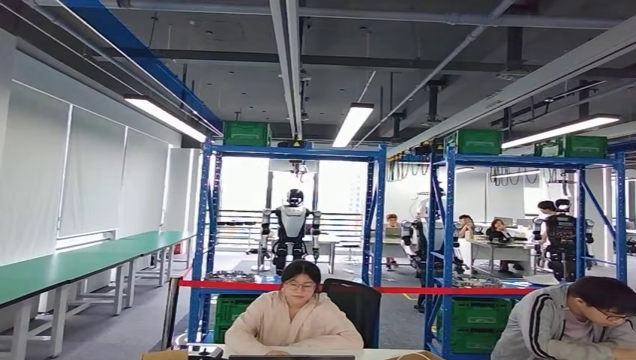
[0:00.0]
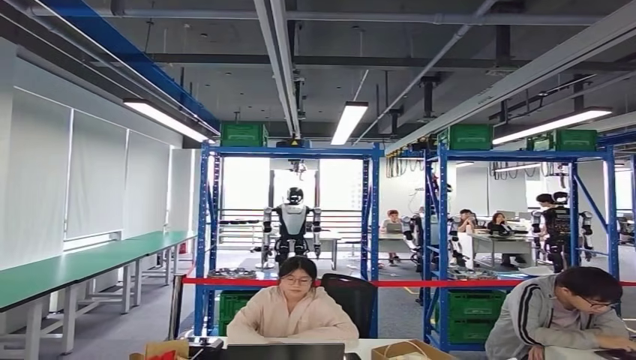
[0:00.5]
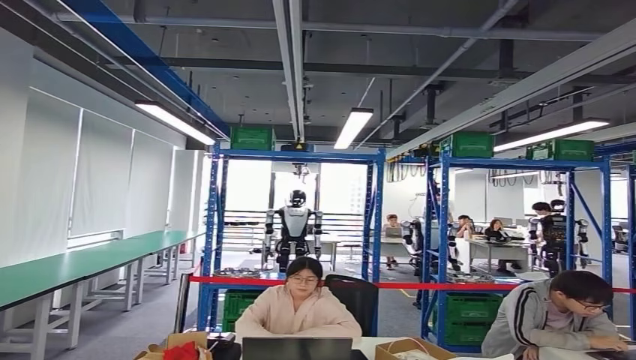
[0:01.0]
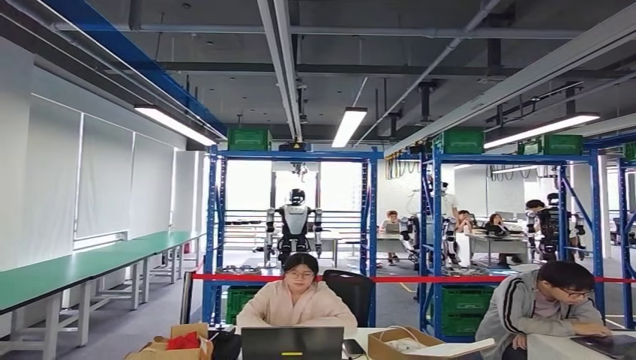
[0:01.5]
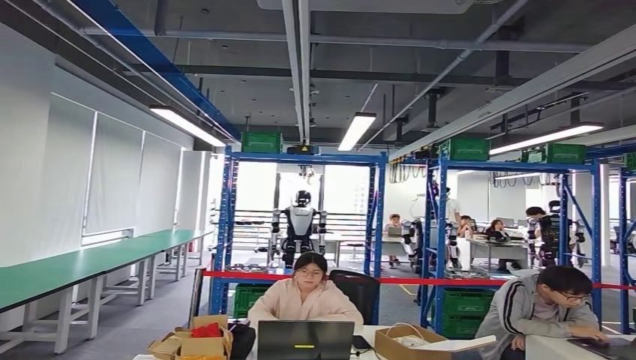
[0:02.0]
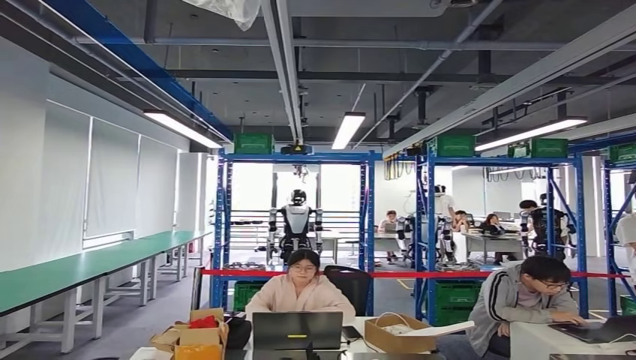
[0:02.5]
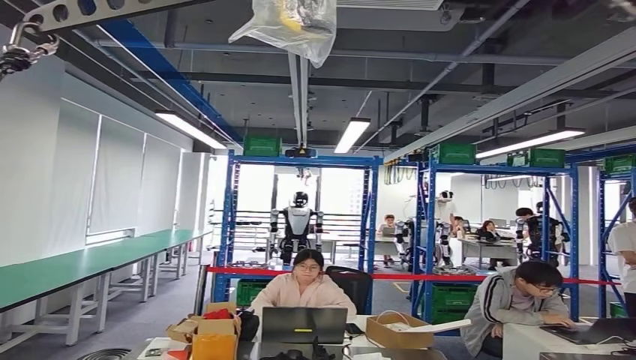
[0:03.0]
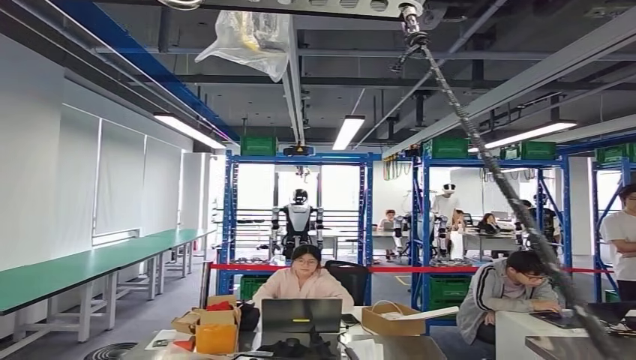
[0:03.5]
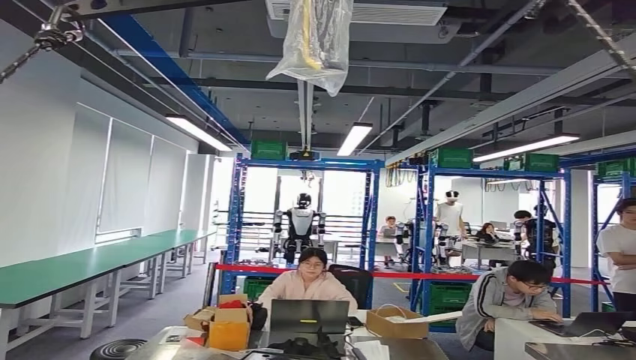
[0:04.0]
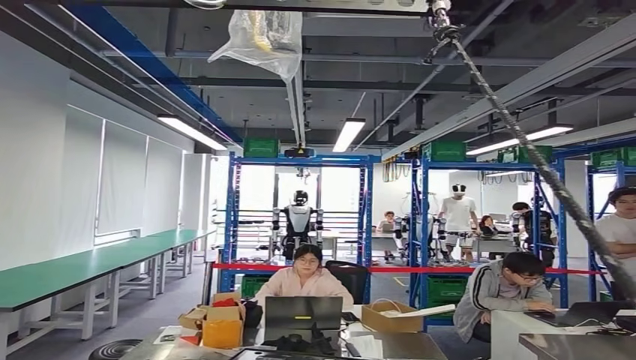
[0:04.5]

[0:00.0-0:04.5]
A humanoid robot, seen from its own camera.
Step, 0:00.0 to 0:04.5: Move to the initial position at the workbench.

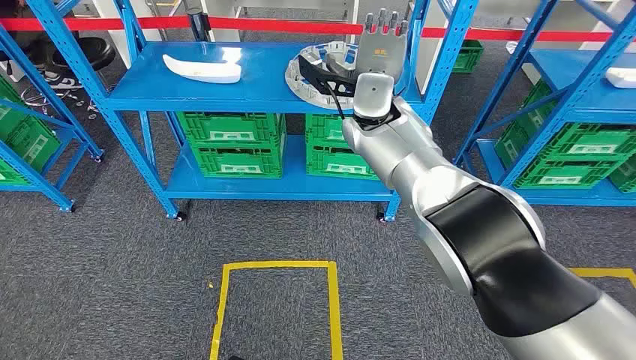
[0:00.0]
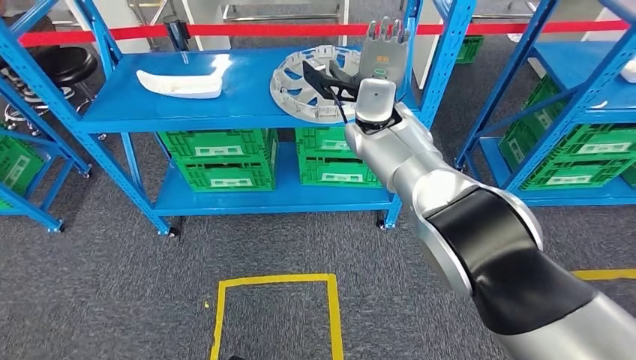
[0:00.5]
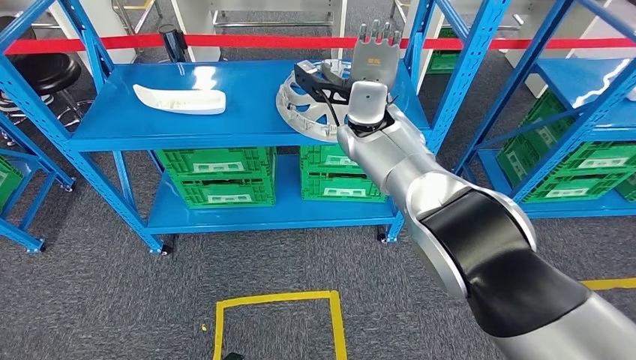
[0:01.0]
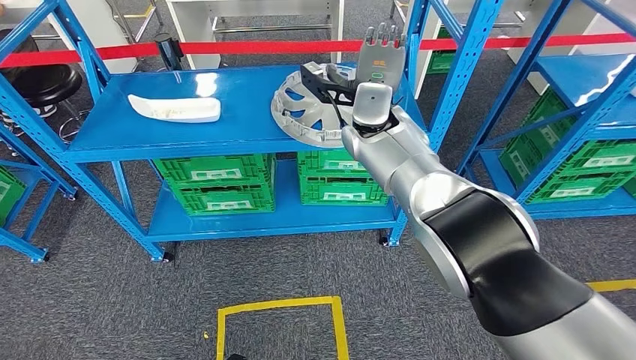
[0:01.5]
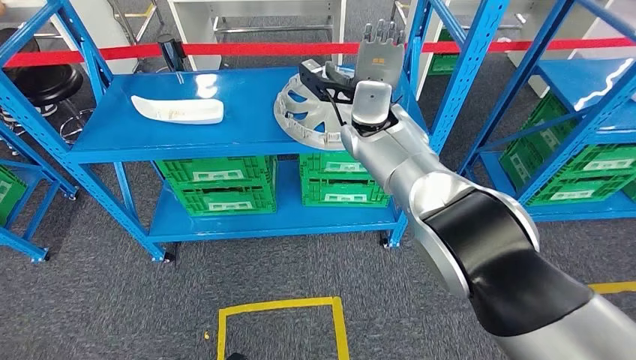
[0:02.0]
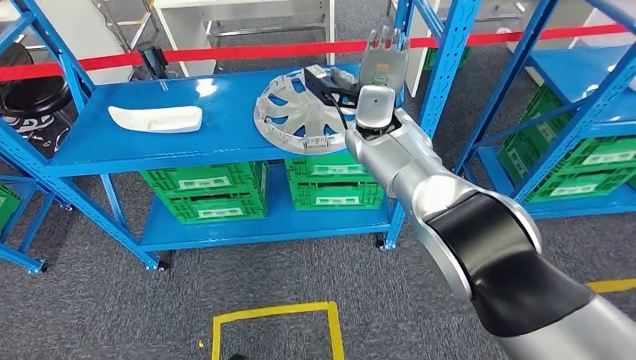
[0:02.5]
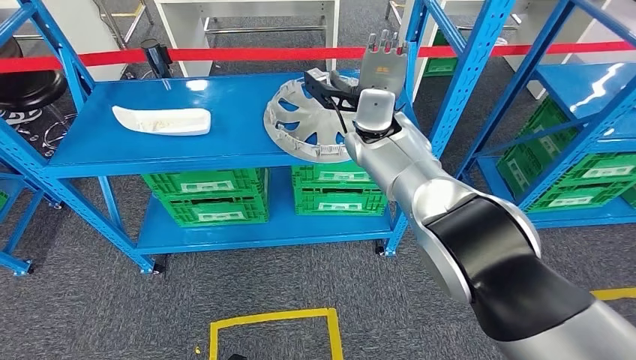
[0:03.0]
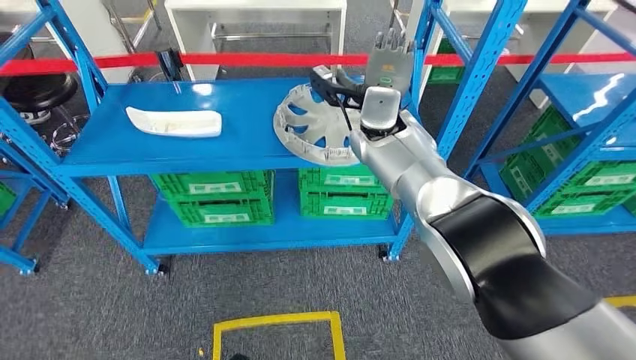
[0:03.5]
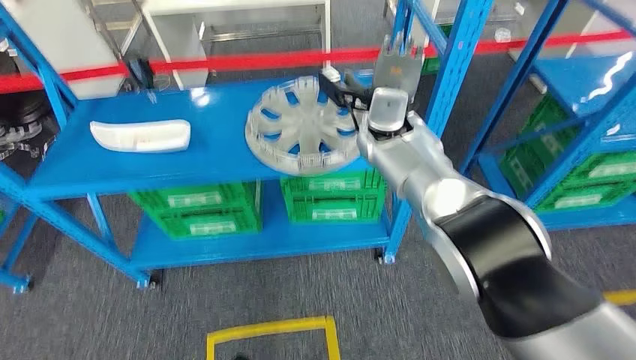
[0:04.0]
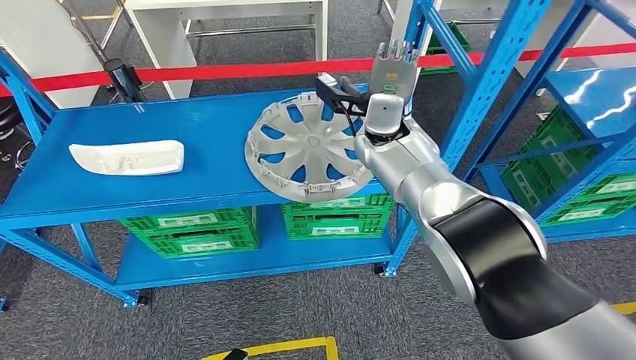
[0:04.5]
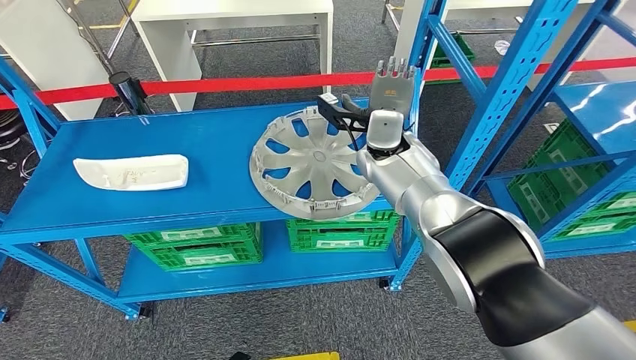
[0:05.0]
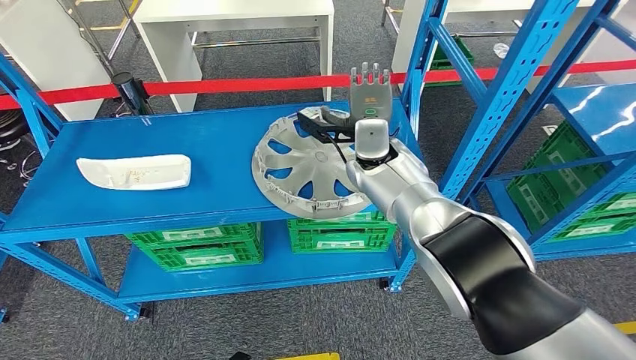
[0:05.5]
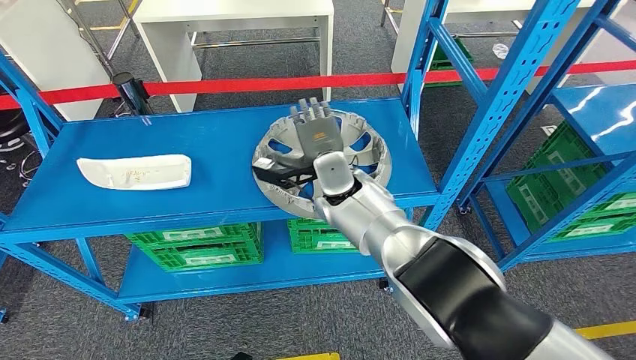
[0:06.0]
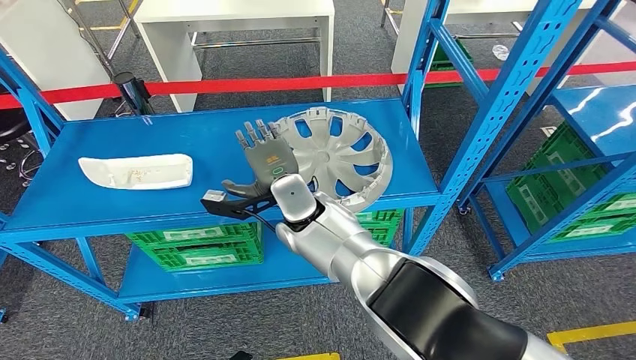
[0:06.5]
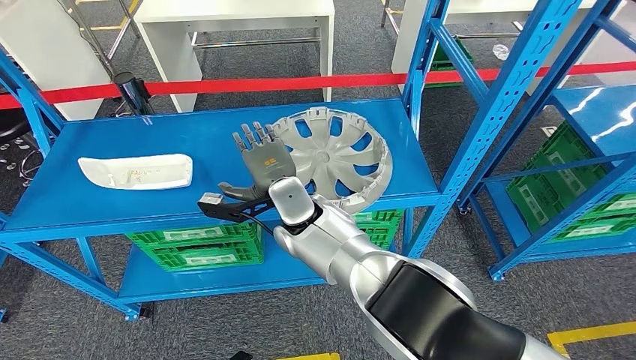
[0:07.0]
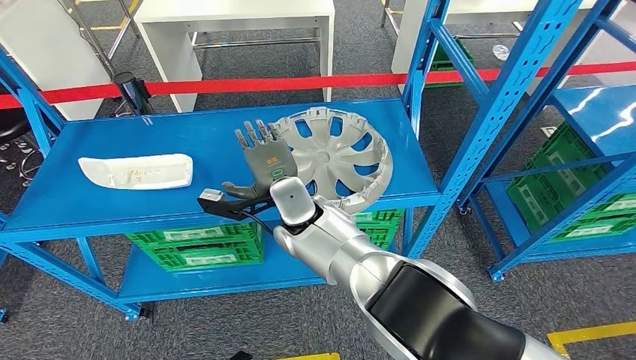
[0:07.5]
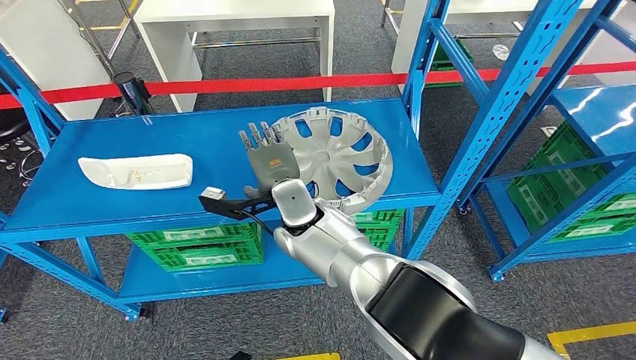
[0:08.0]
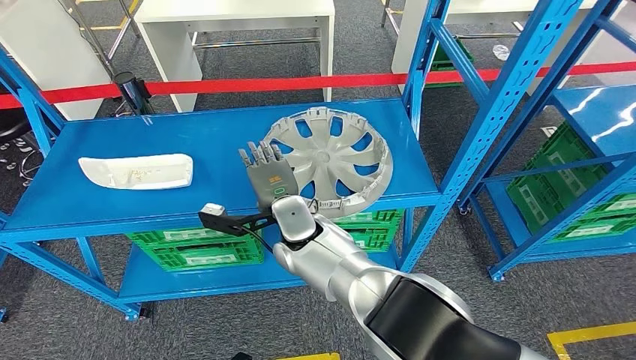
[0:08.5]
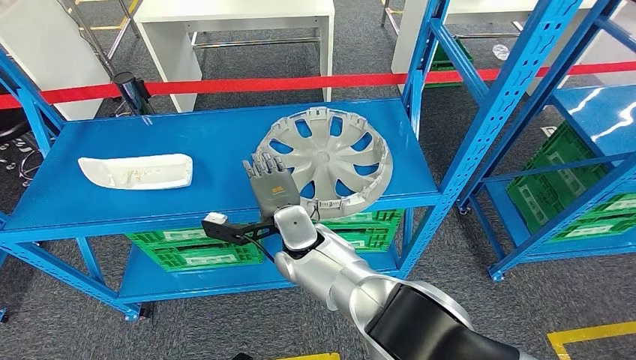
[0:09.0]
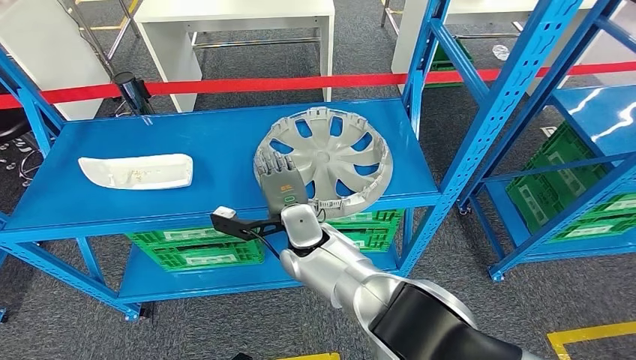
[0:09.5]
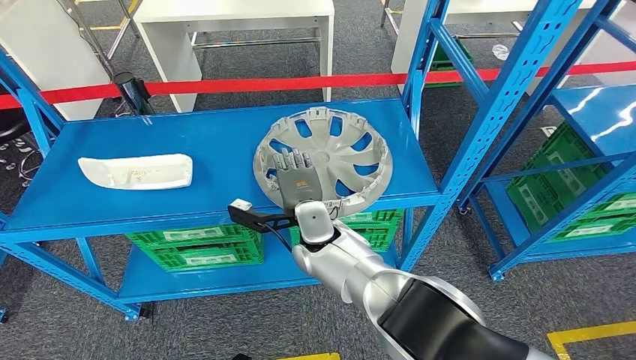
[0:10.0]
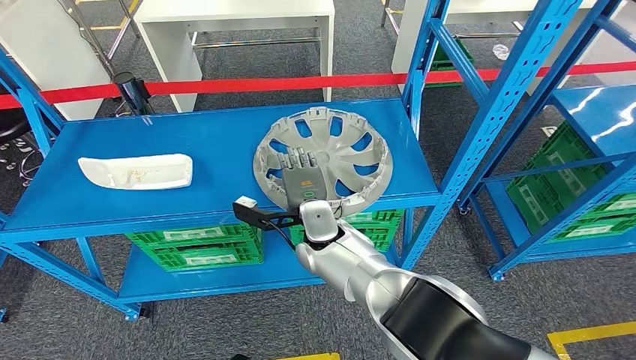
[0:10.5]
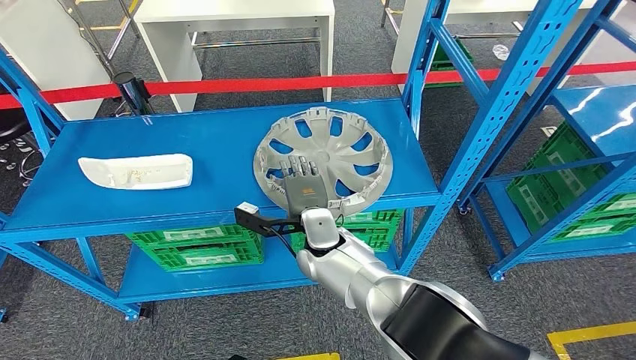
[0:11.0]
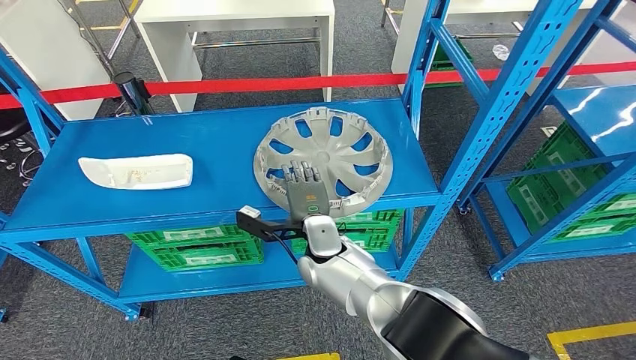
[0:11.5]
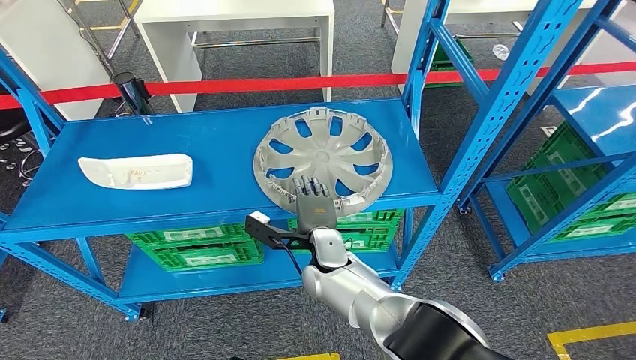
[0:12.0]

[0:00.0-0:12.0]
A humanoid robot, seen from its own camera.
0:06.0 to 0:08.0: The right hand is displaced to the left by some 10 cm.
0:08.0 to 0:10.0: The right hand ends up about 5 cm from where it was.
0:10.0 to 0:12.0: The right hand ends up approximately 5 cm from where it was.

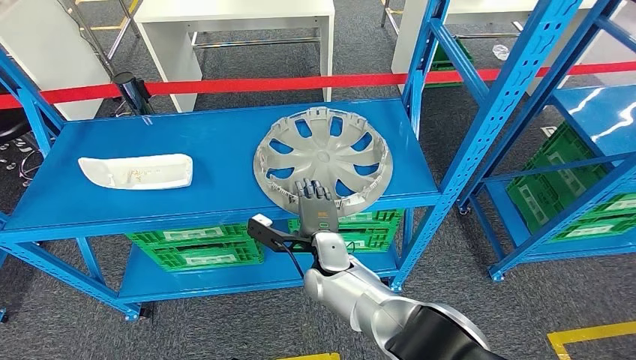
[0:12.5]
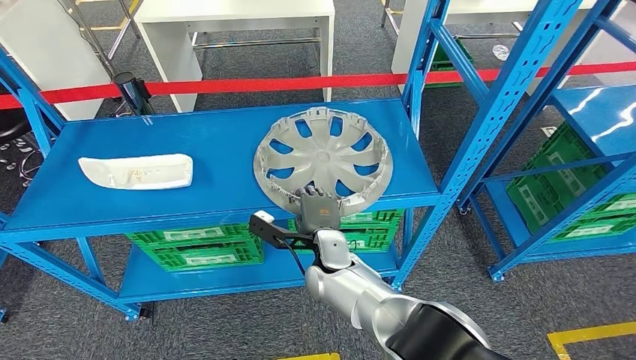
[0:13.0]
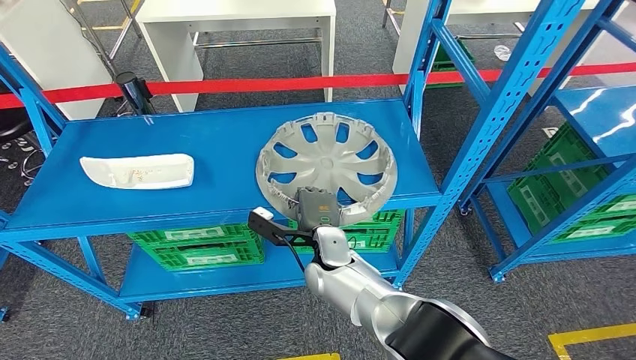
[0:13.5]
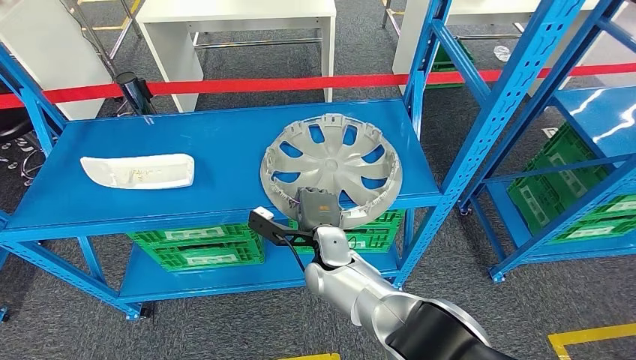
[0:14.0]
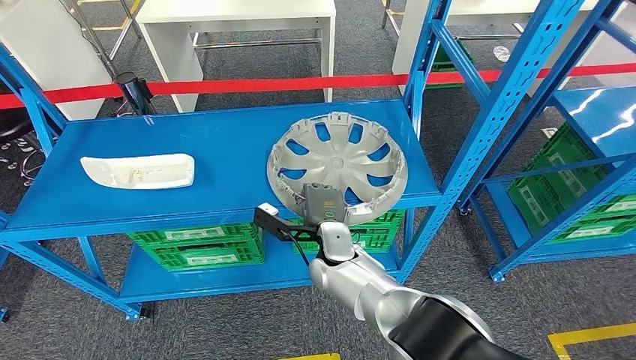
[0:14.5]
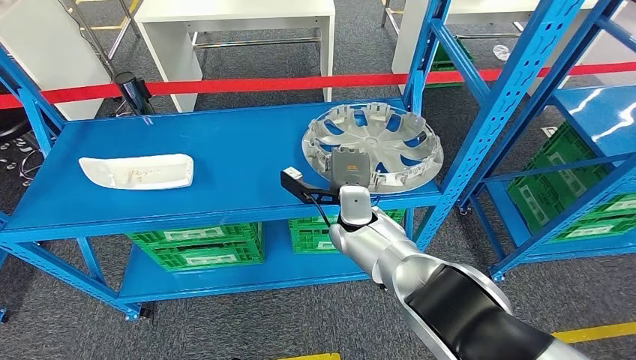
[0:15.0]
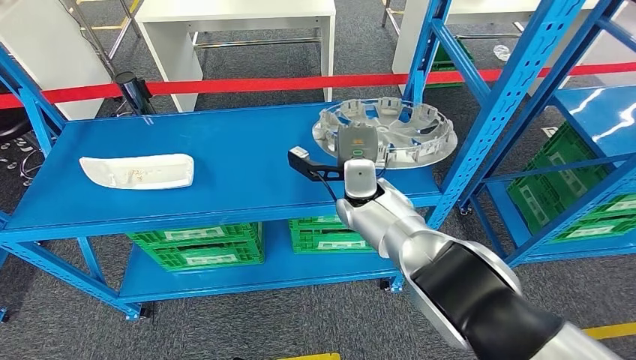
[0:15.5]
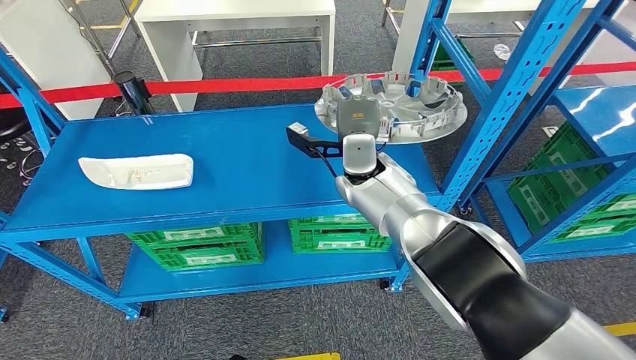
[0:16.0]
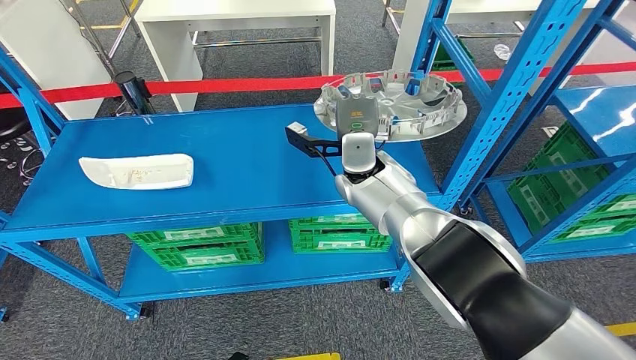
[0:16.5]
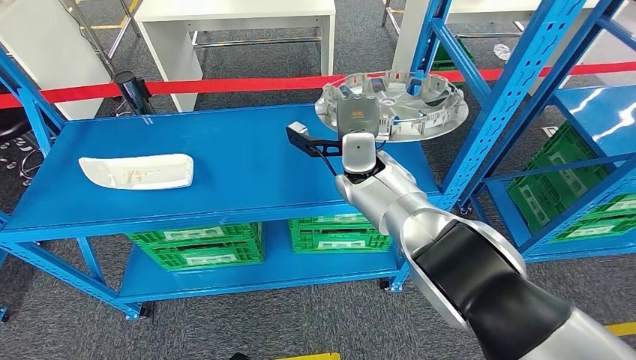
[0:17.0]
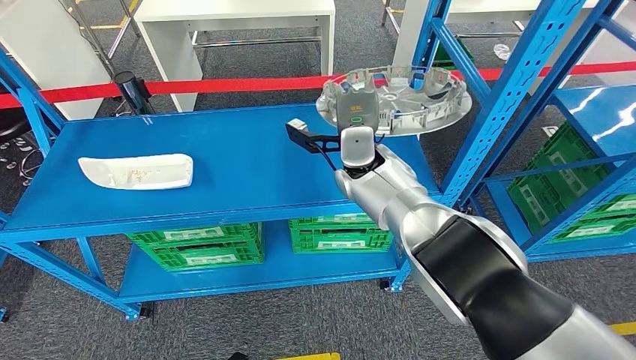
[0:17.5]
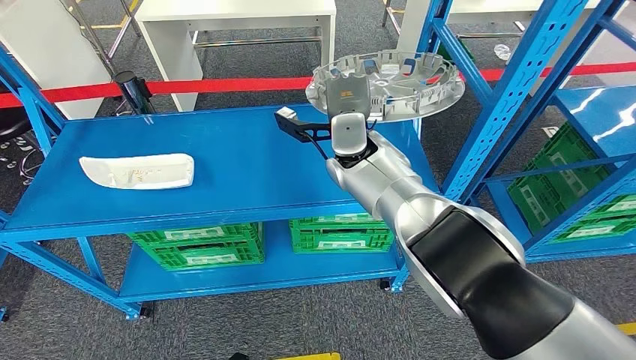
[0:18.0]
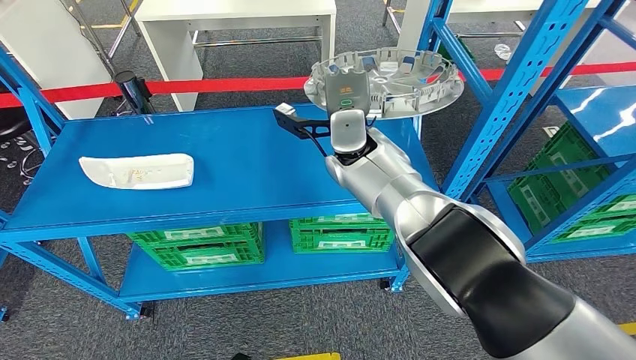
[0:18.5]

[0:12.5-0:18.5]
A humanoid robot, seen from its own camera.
Step, 0:12.5 to 0:17.0: Pick up the small component from the shelf.
0:12.5 to 0:14.5: There are only small adjustments of the hands.
0:16.5 to 0:18.5: The hands stay close to where they were, moving slightly.
